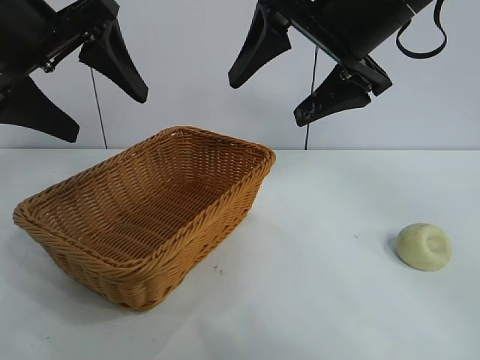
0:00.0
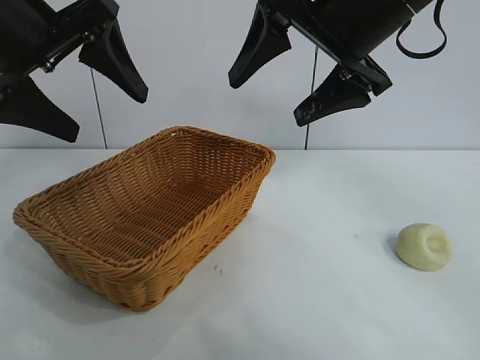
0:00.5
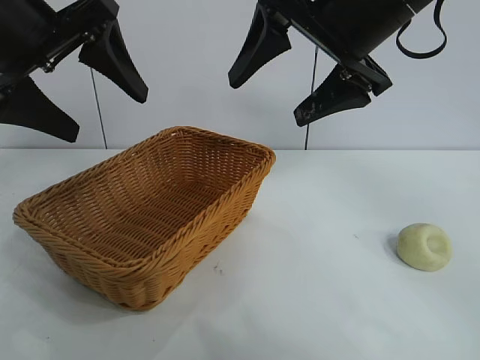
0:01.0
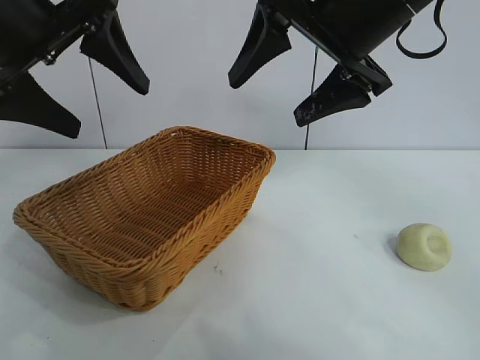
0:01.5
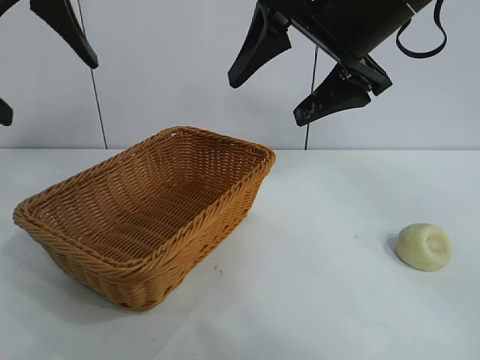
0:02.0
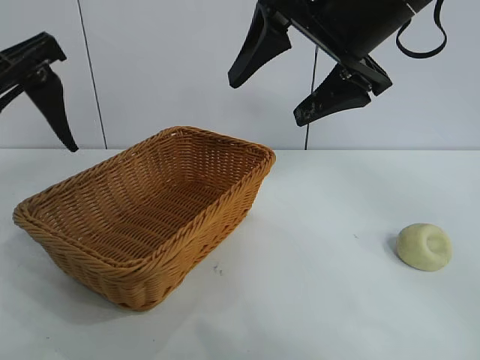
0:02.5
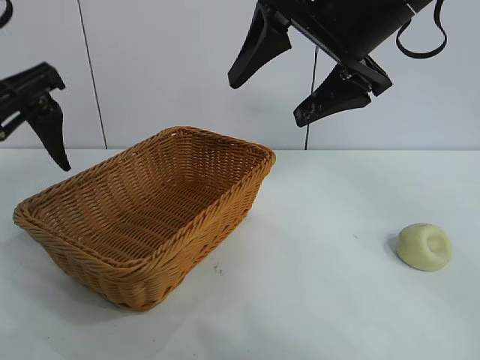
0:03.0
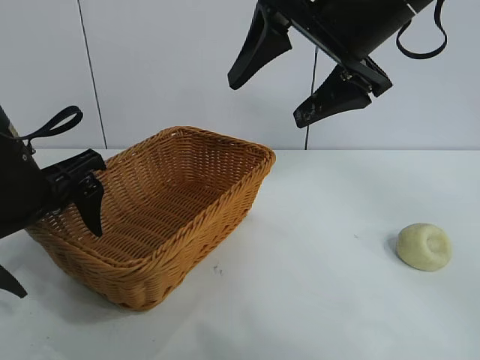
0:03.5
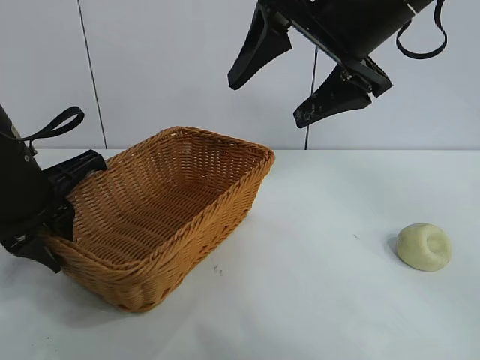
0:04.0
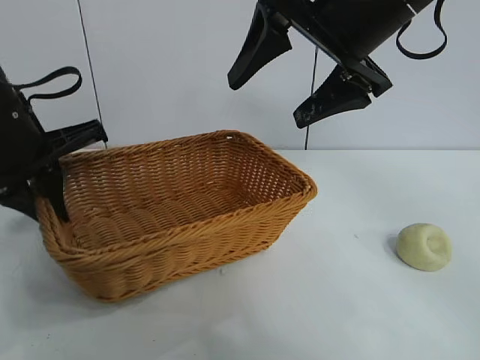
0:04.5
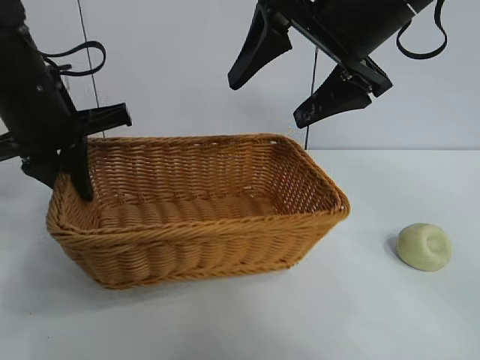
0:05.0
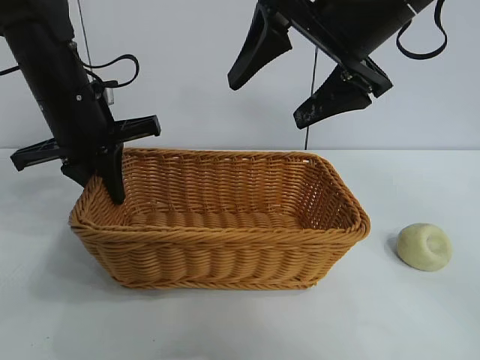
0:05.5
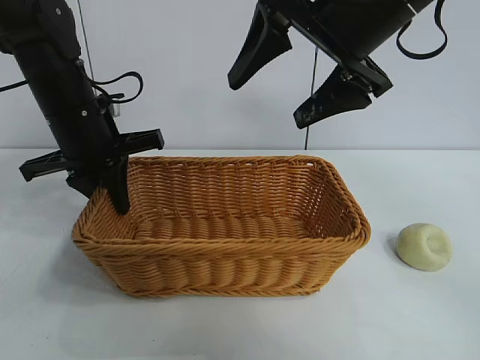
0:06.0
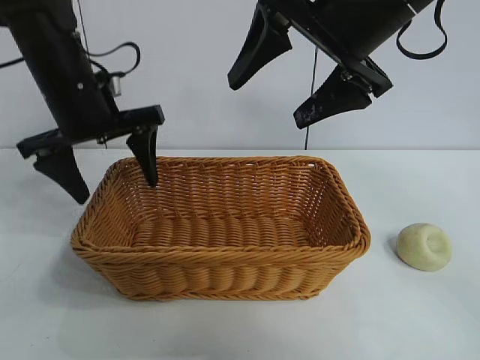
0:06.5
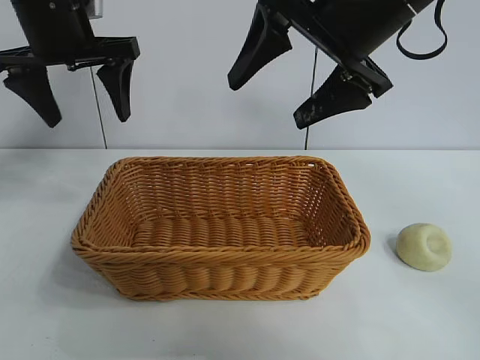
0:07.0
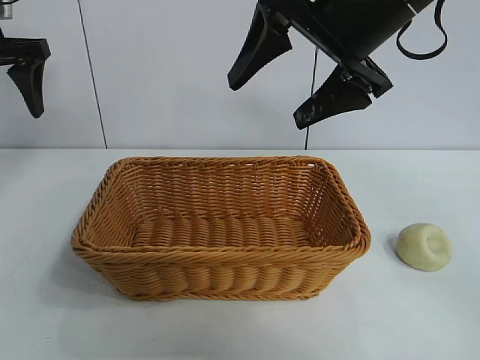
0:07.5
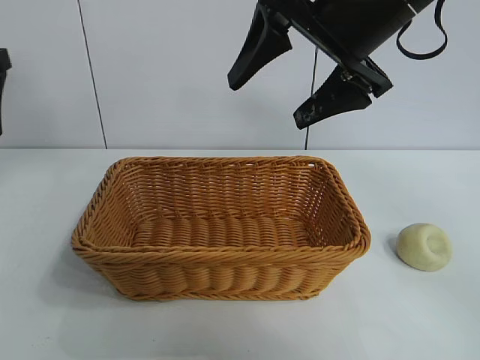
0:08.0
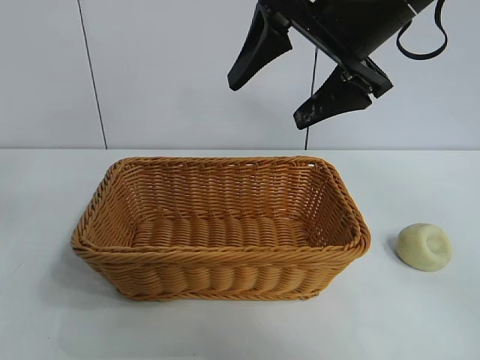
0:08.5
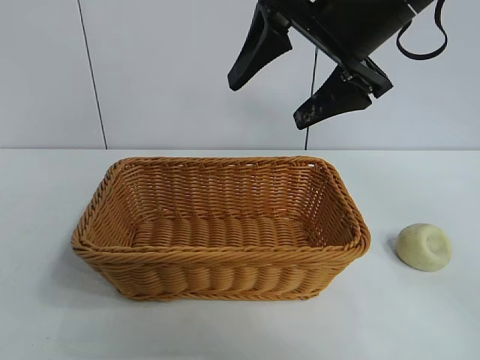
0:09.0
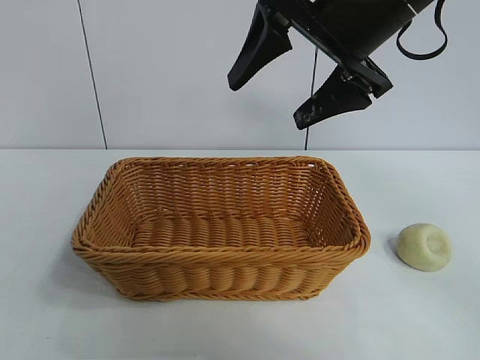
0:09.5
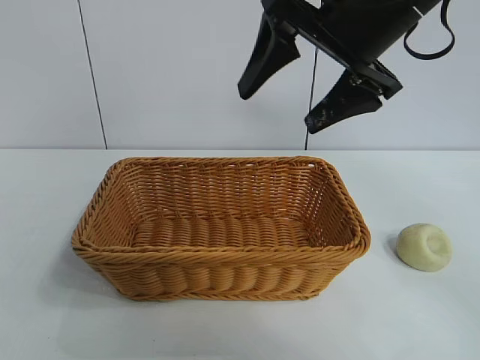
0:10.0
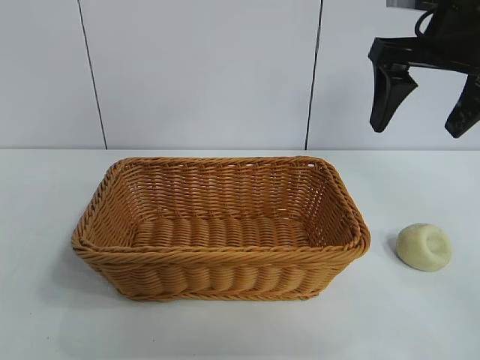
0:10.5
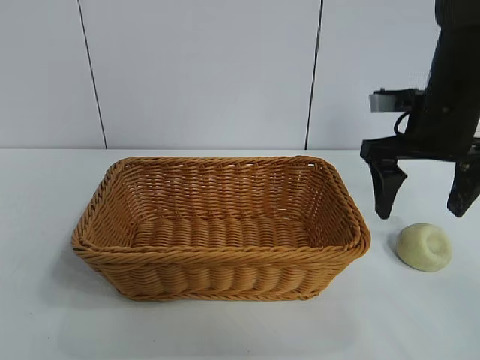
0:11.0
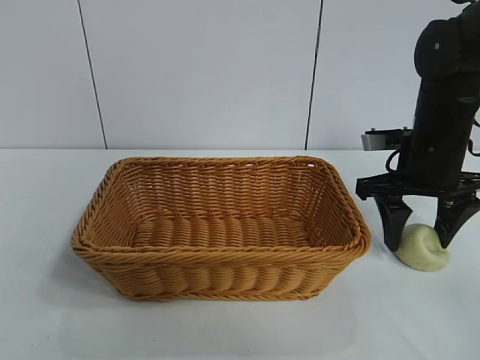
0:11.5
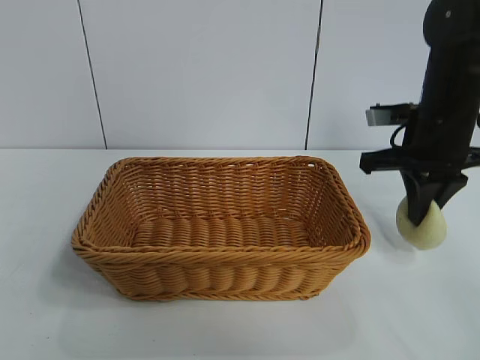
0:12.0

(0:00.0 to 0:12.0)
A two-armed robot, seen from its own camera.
Task of the whole recording: pick up the egg yolk pastry and put it into the basket.
Step, 0:01.5 - 0:04.0: Grasp the basket with left gripper.
Step, 0:04.5 - 0:06.0: Place the basket in the center of view with left gripper.
Step, 0:06.5 - 0:11.5: Grasp egg yolk pastry with right gripper.

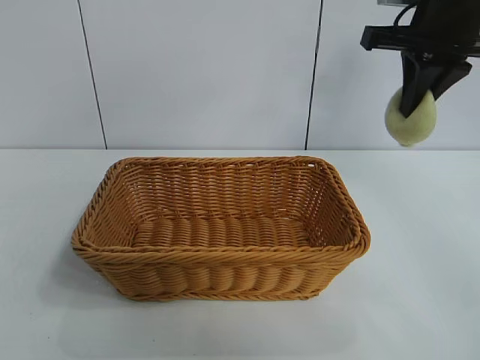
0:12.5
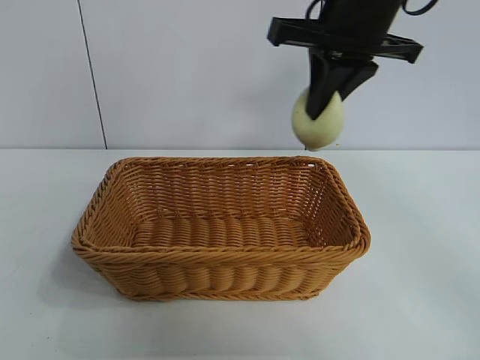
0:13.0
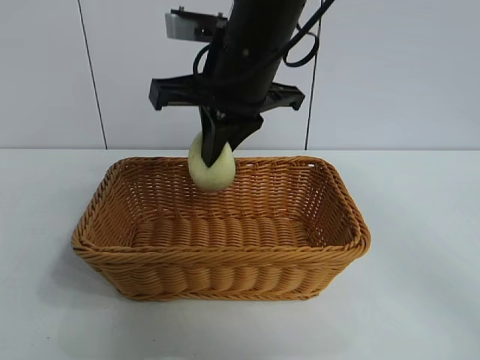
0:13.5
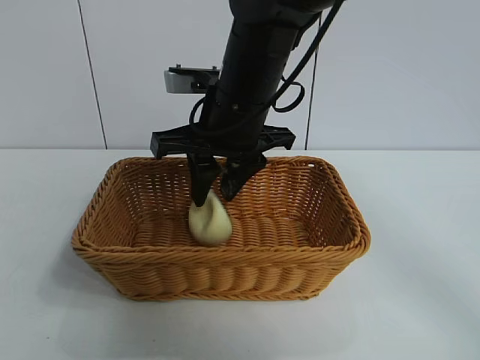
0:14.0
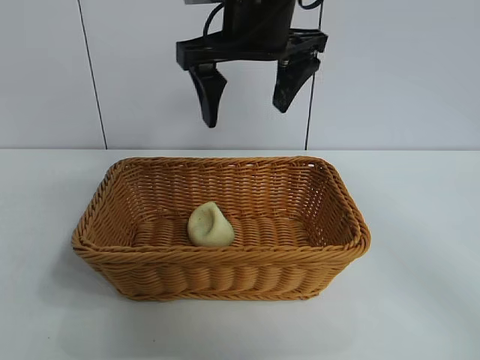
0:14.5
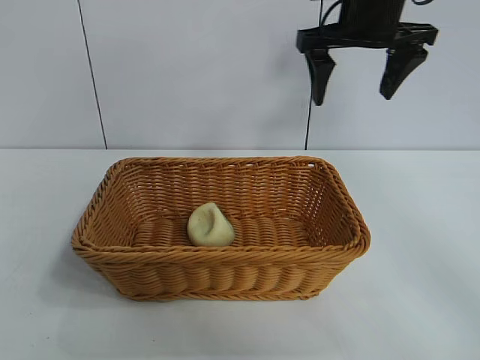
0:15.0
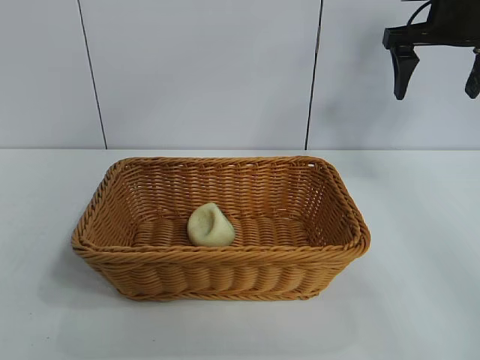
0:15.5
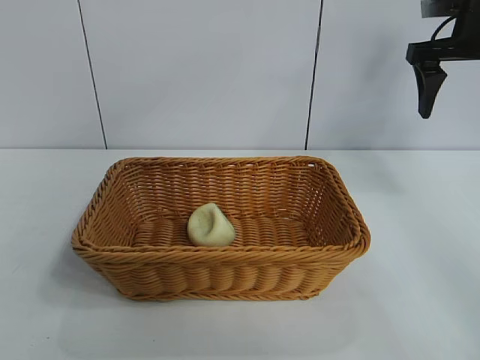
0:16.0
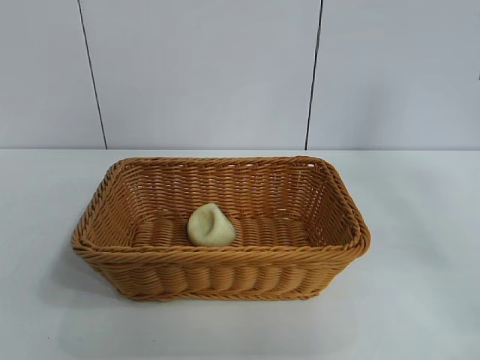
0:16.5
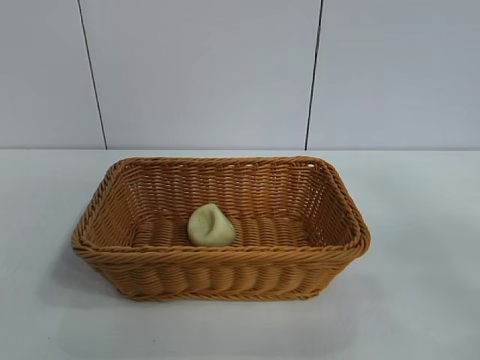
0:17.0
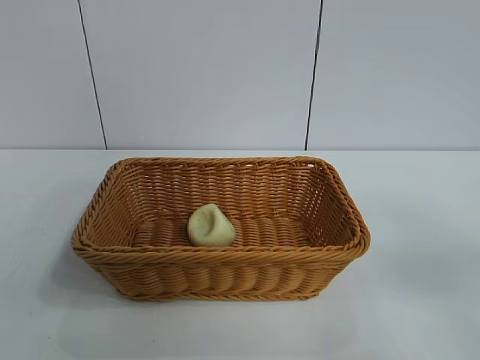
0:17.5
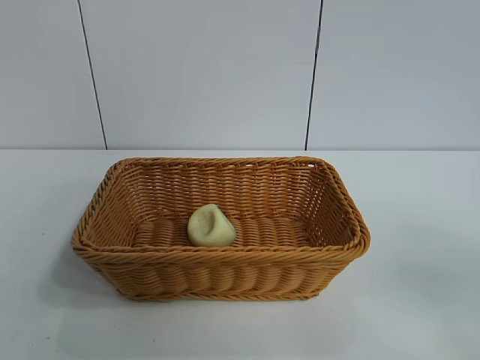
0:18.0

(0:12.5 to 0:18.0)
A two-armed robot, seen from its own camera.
Task of the whole recording: pick up the egg yolk pastry and put it into the basket.
Step, 0:12.5 - 0:14.0: Place the egg yolk pastry in the basket with right gripper.

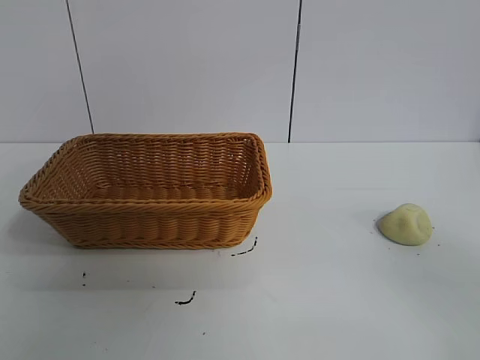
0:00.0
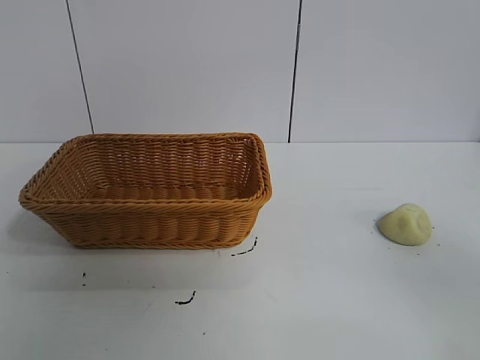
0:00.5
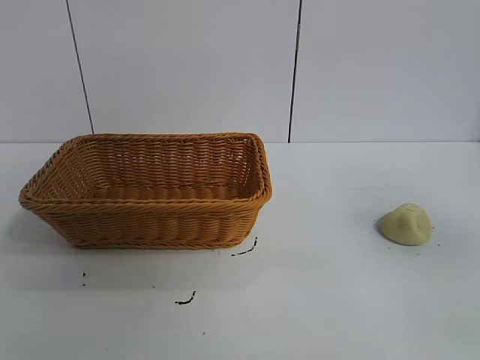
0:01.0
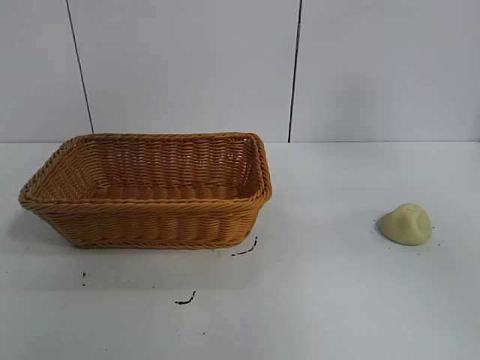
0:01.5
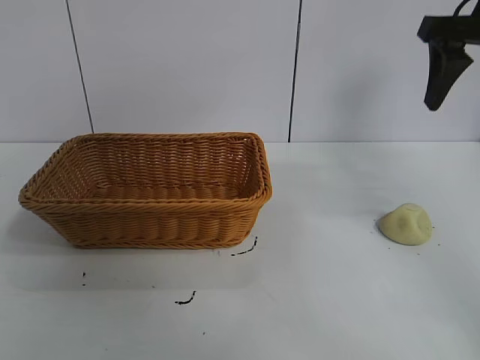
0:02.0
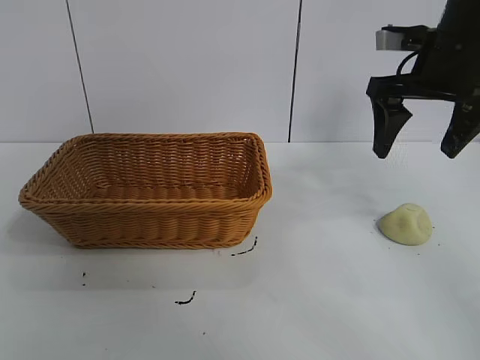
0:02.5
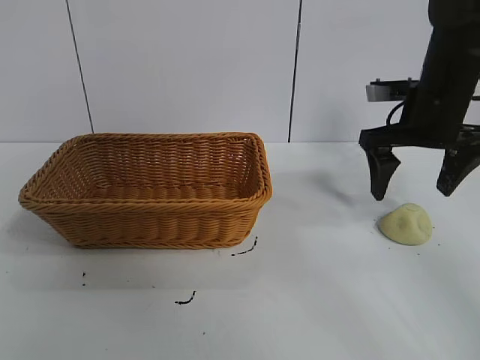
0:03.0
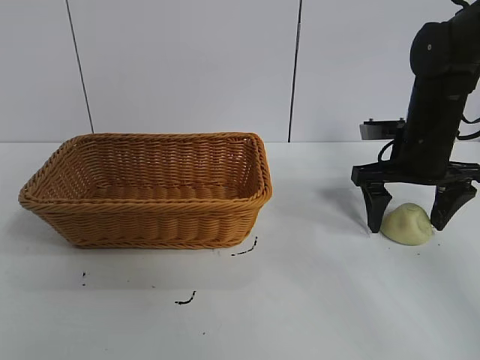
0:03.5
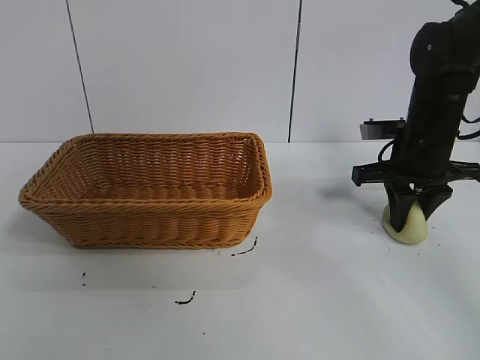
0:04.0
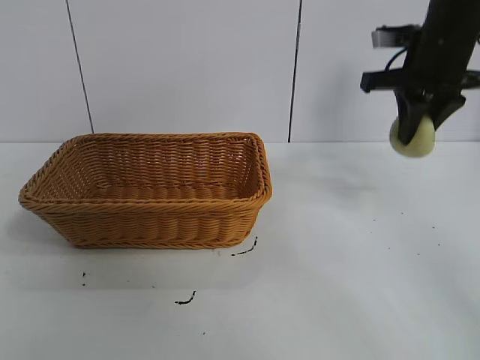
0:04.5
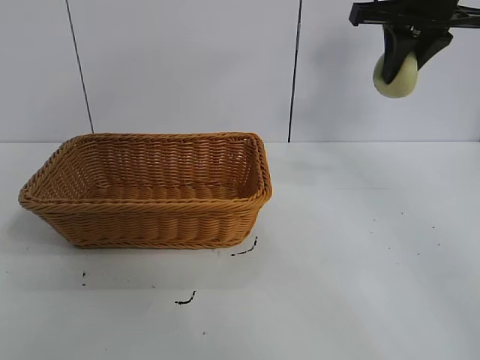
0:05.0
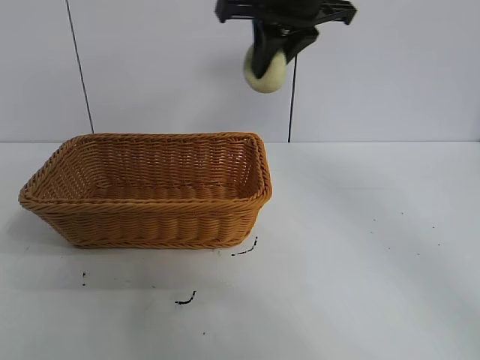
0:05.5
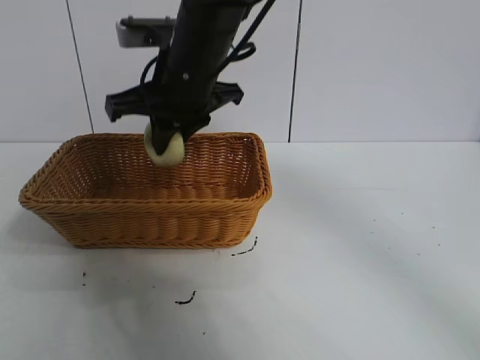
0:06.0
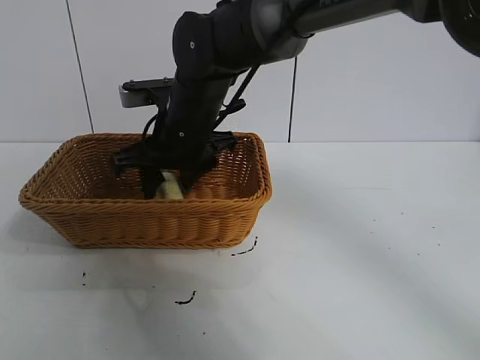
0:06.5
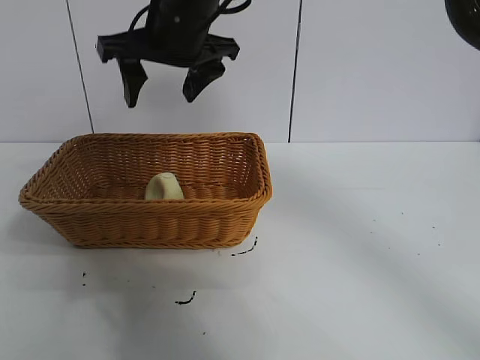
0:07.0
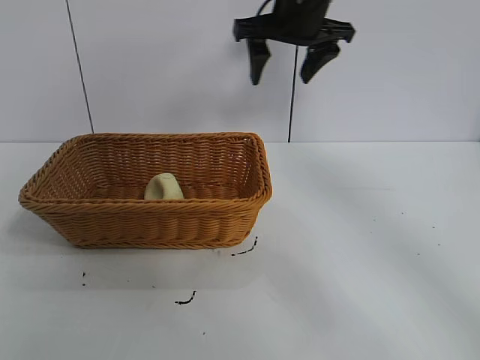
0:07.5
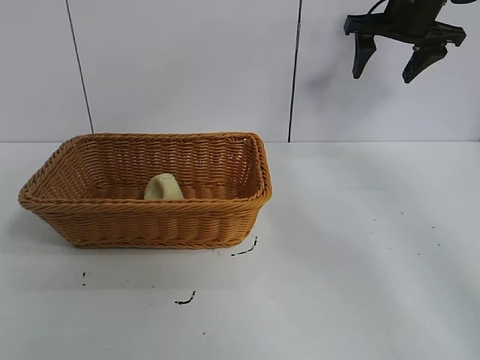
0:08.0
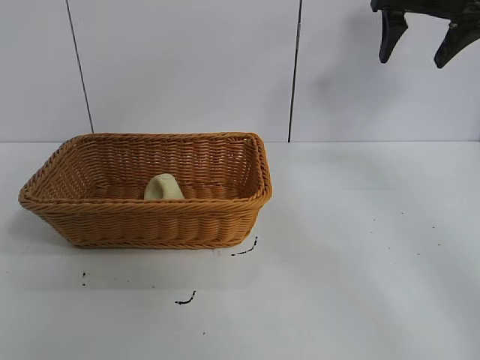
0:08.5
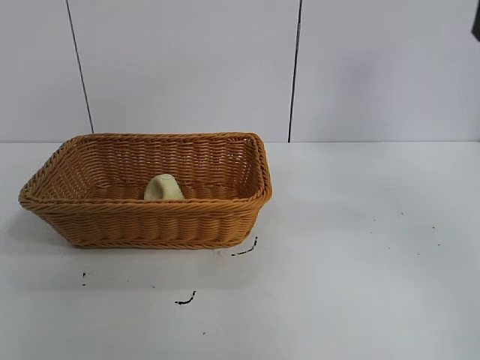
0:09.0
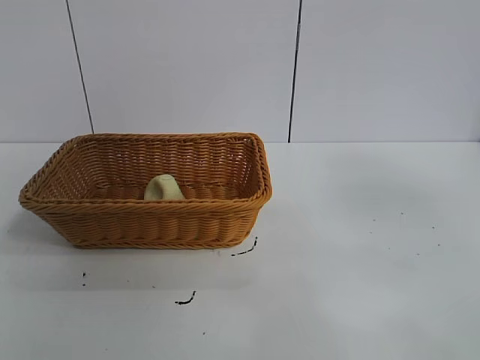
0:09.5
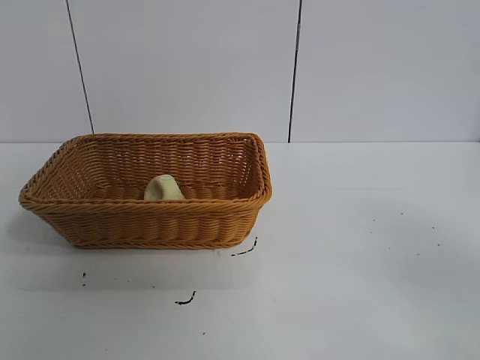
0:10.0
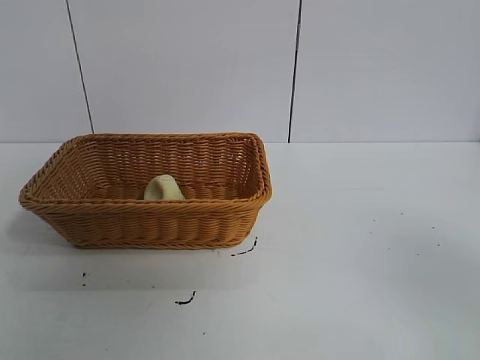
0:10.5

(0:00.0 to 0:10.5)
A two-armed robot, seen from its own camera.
Task of the whole recording: pick up the egg yolk pastry and put it into the basket.
Step, 0:01.0 - 0:03.5: Grasp egg yolk pastry with right gripper.
Step, 0:04.5 - 0:06.5: Place the egg yolk pastry in the basket with right gripper.
